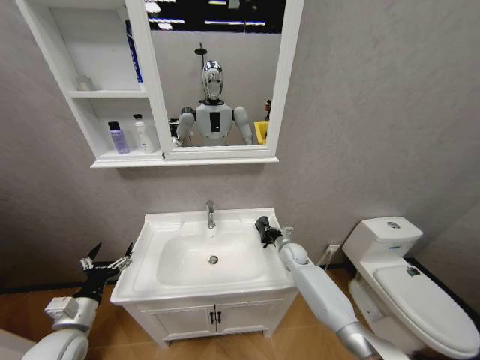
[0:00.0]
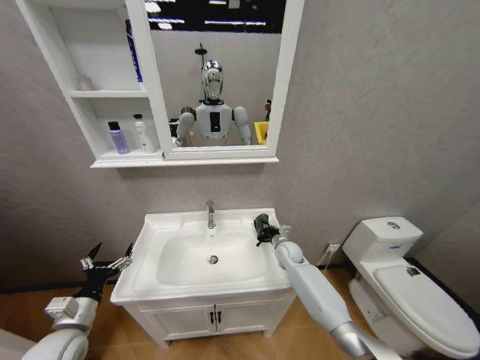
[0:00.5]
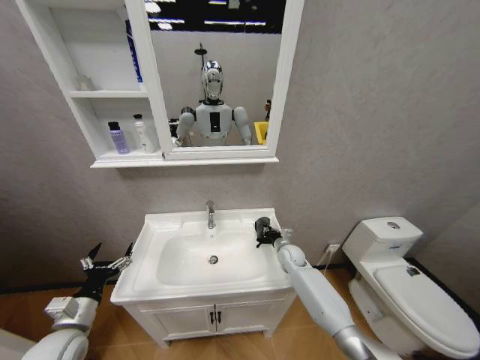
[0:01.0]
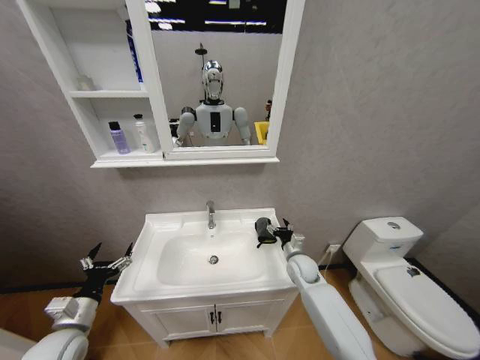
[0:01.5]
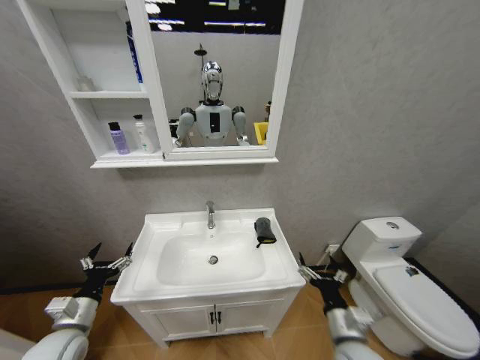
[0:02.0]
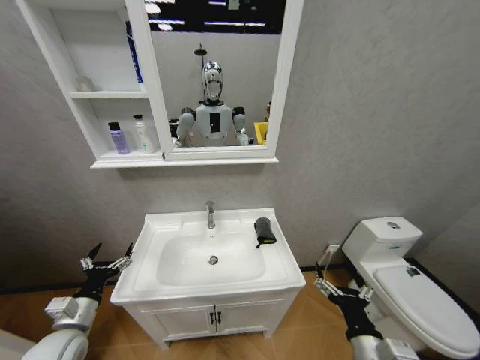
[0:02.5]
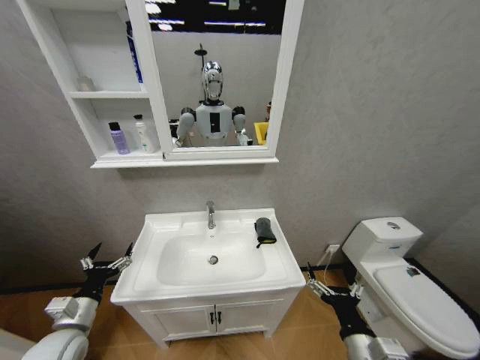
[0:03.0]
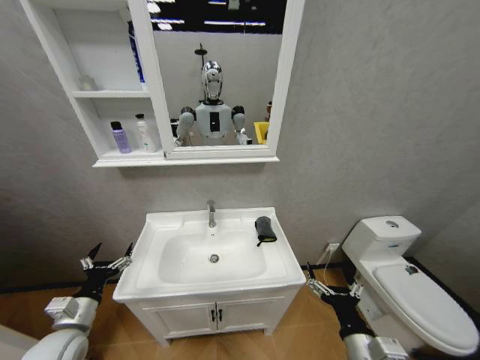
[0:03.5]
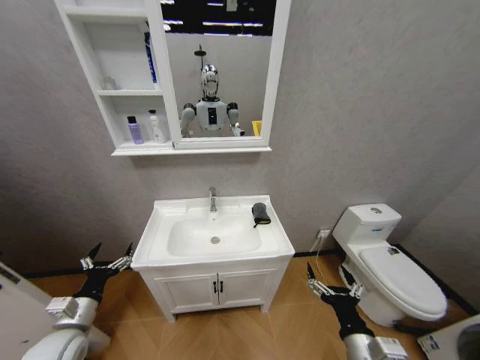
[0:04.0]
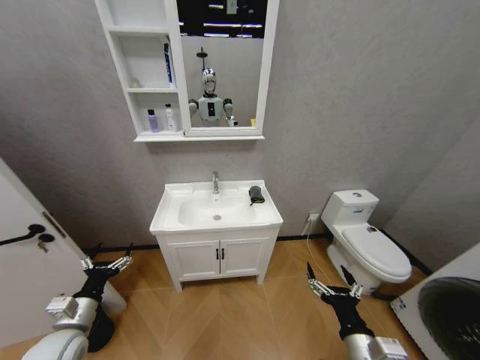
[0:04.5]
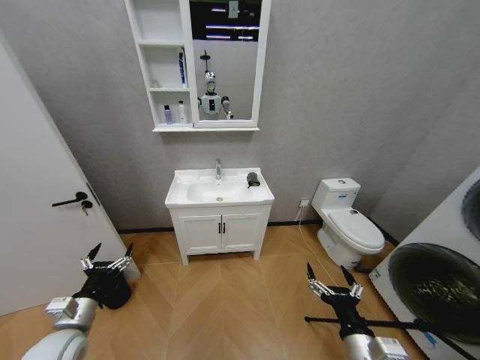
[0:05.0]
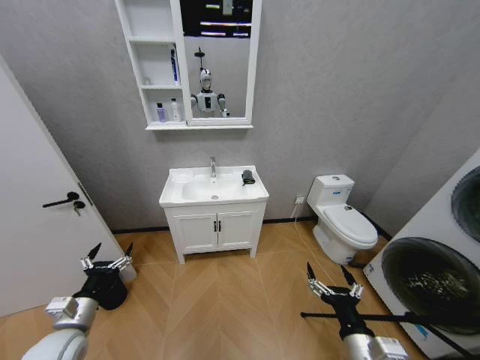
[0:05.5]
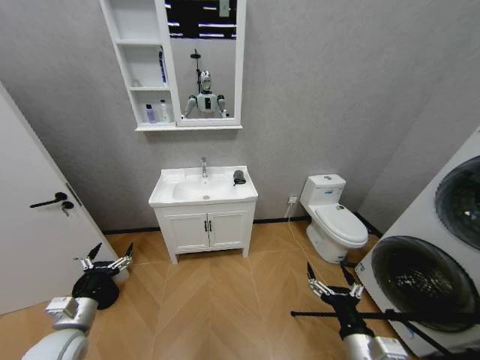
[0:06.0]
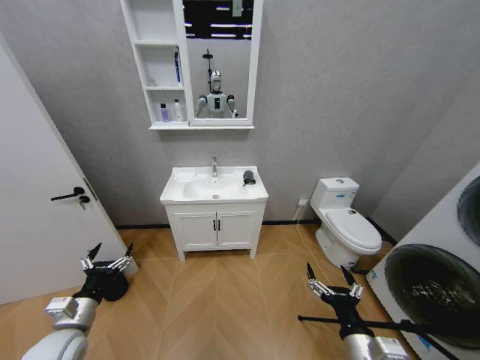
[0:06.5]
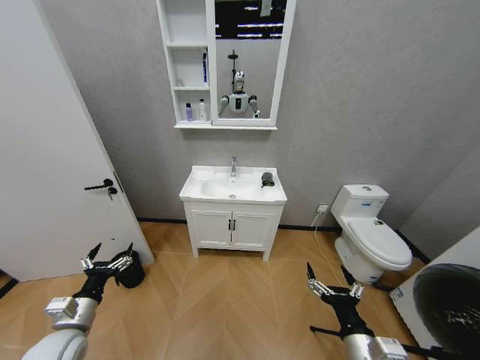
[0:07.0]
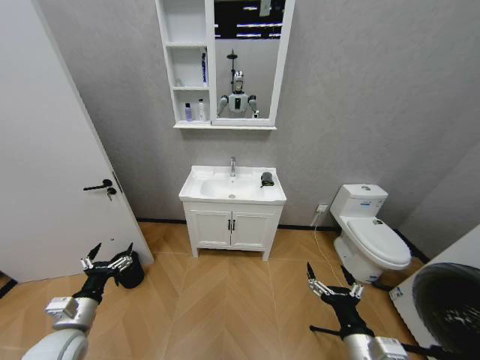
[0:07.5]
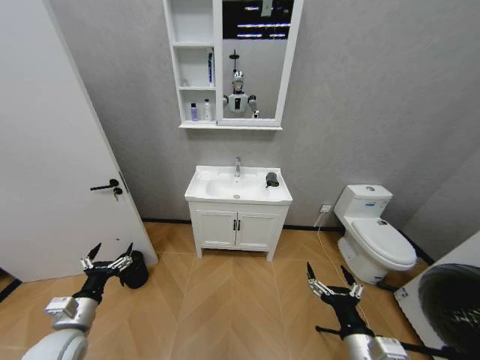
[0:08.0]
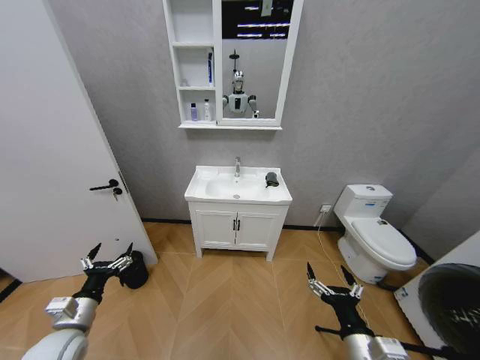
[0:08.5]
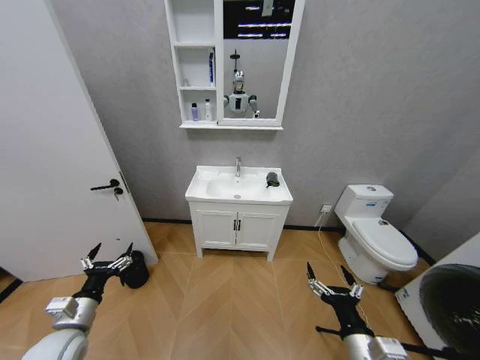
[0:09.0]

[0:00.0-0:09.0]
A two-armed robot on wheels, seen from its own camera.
Task of the whole recording: Move facial cleanser and shampoo from washbasin to cabinet, then wipe washbasin with towel.
0.0 to 2.0 s: The right gripper shifts about 30 cm backward, and opens its fingers.
2.0 to 4.5 s: The right gripper goes roughly 10 cm backward.
7.0 to 9.0 s: Both grippers stay about where they are.

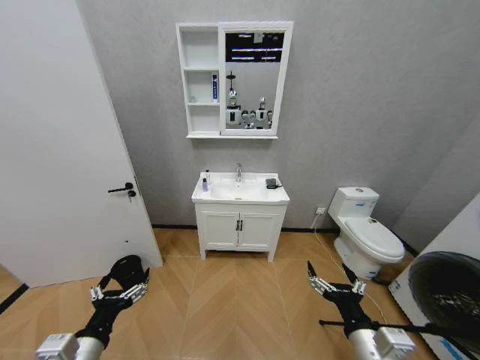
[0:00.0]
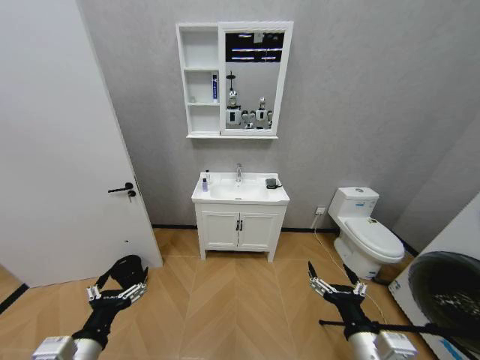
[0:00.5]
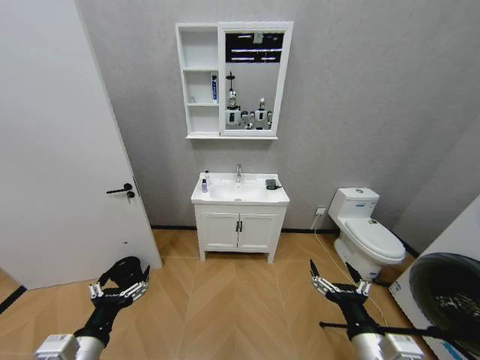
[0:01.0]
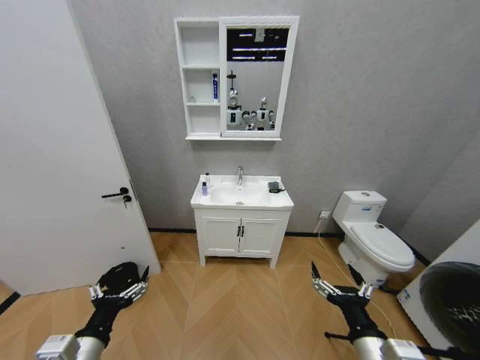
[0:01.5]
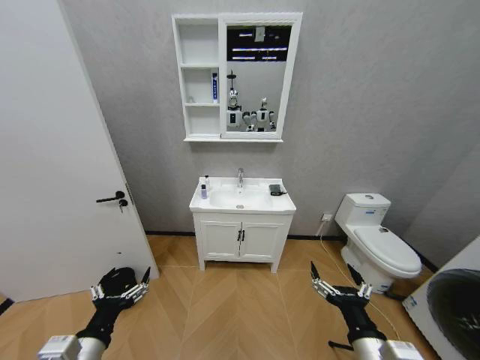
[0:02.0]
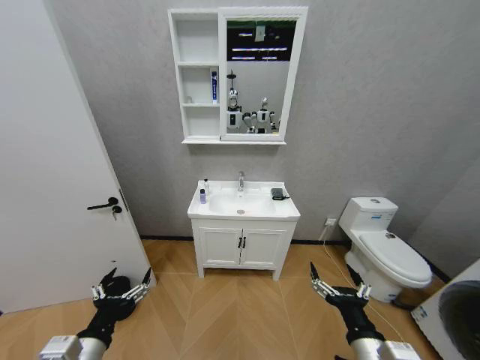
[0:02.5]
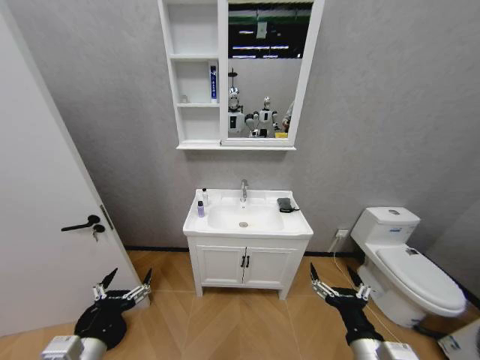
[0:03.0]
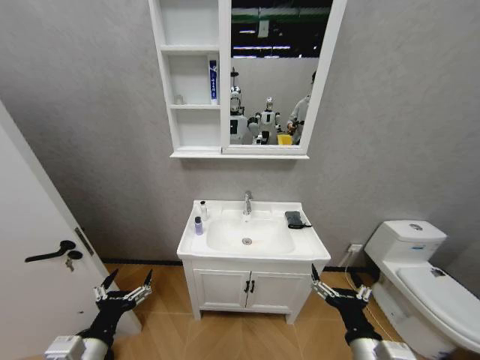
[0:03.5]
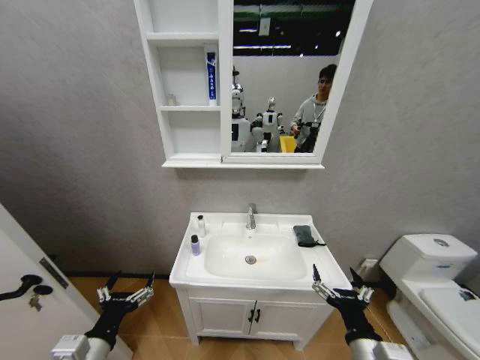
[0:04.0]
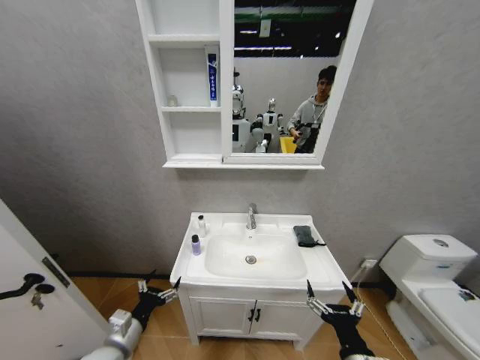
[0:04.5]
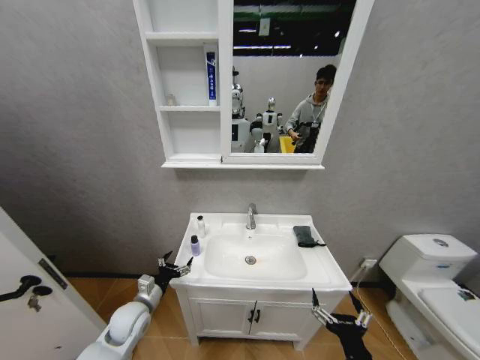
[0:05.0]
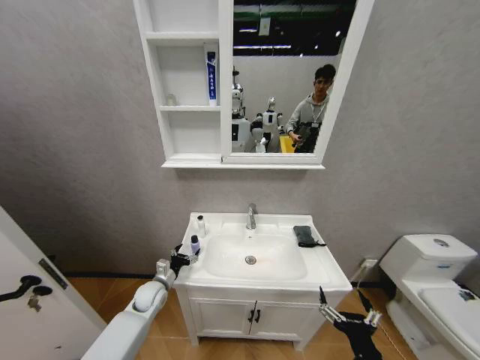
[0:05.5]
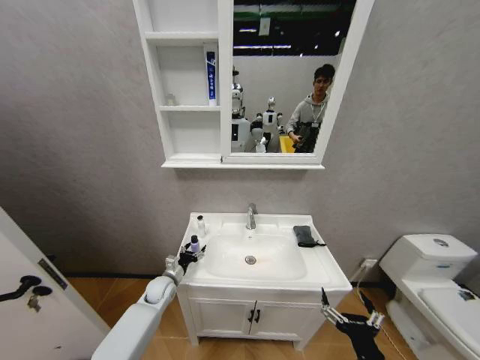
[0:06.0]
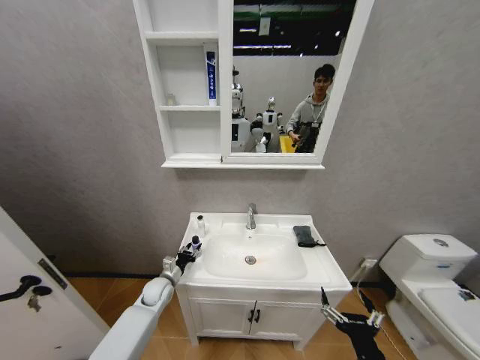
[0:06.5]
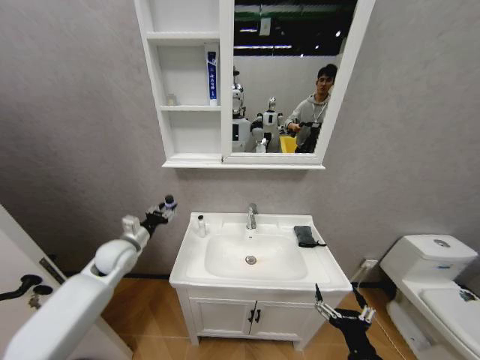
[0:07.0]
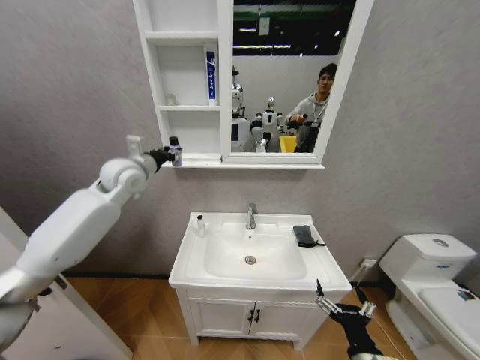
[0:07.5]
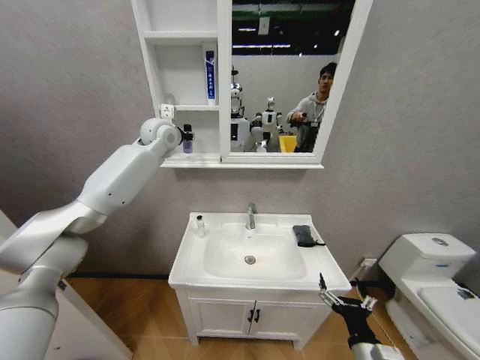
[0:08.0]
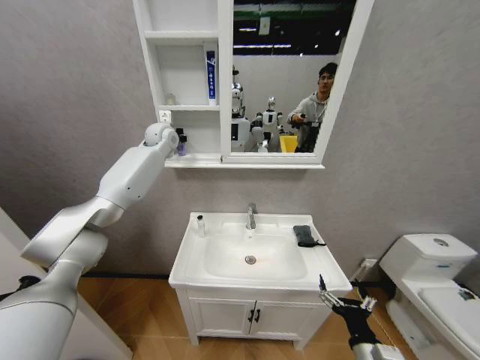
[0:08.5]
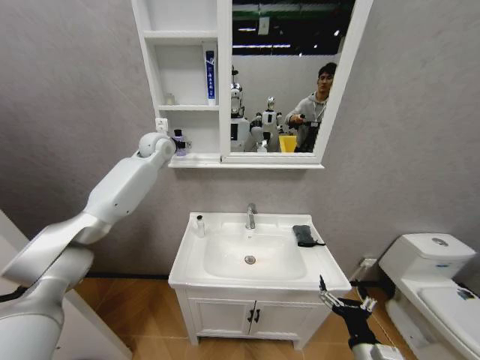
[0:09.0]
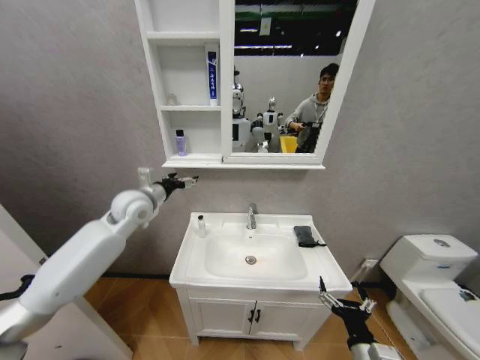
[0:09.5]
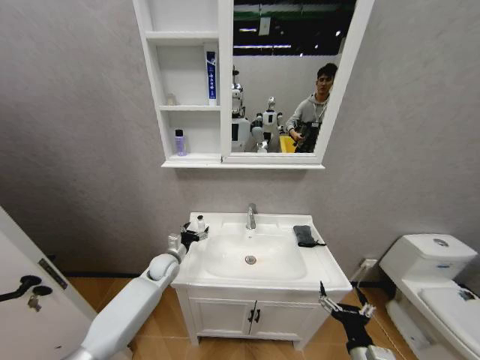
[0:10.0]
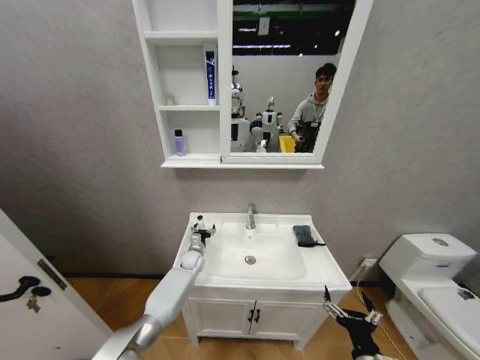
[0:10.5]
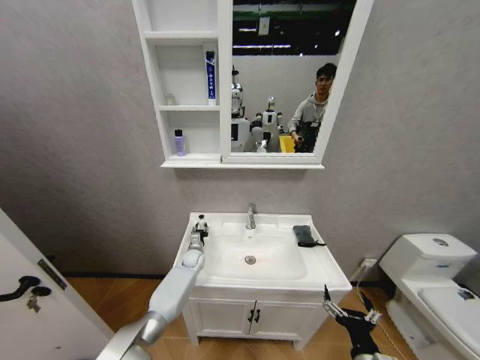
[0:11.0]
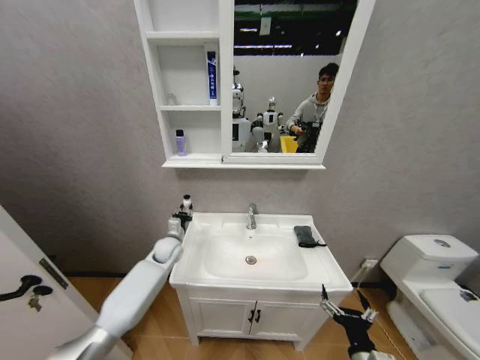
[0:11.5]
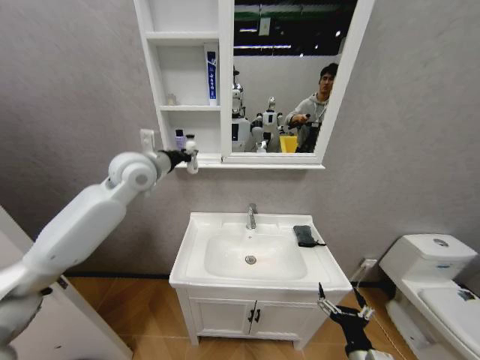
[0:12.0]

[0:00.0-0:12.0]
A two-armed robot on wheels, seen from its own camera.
Task of the whole recording: Move facial cleanser and shampoo from washbasin to cabinet, then wipe washbasin with towel.
4.0 to 6.0 s: The left gripper heads forward and downward, covering about 35 cm. Meanwhile the right gripper ends up roughly 5 cm from where it was.
6.0 to 8.0 s: The left gripper travels upward by about 50 cm, and closes up.
8.0 to 10.0 s: The left gripper moves downward, about 40 cm, and opens.
10.0 to 12.0 s: The left gripper moves upward, some 40 cm, and closes.

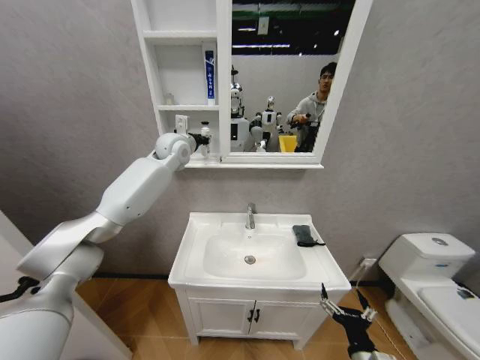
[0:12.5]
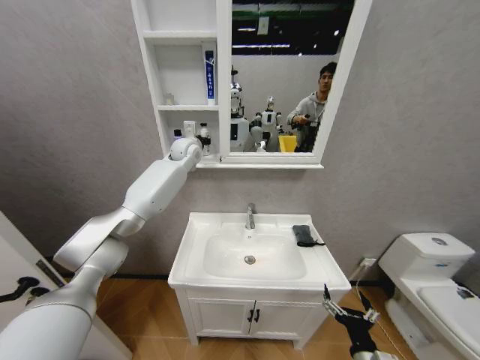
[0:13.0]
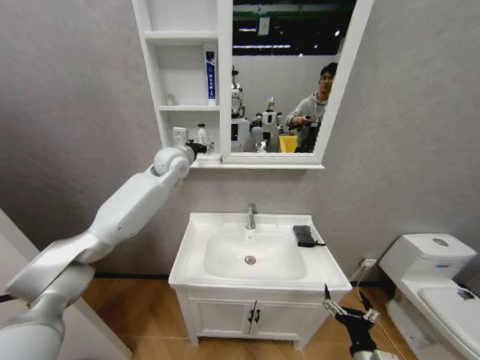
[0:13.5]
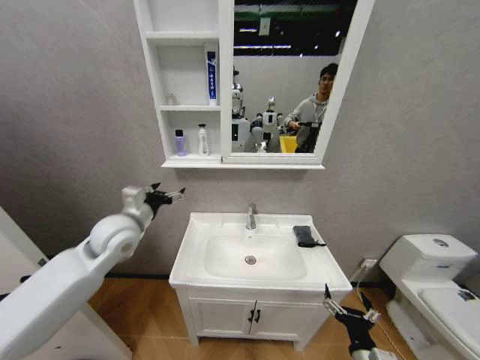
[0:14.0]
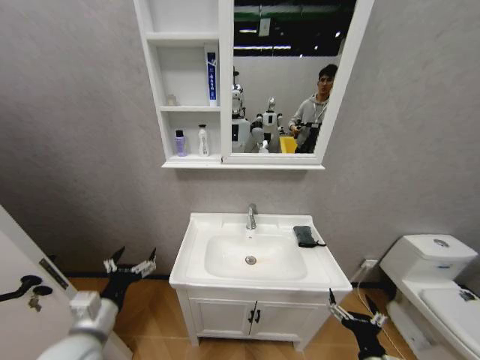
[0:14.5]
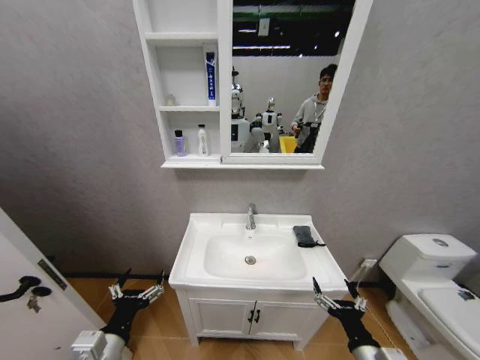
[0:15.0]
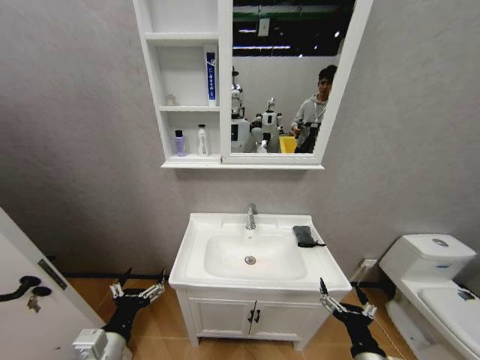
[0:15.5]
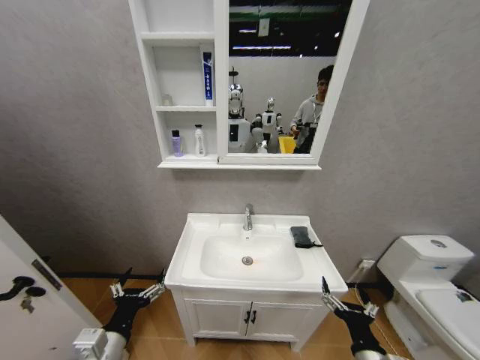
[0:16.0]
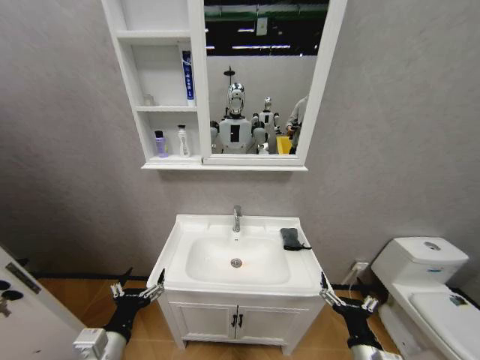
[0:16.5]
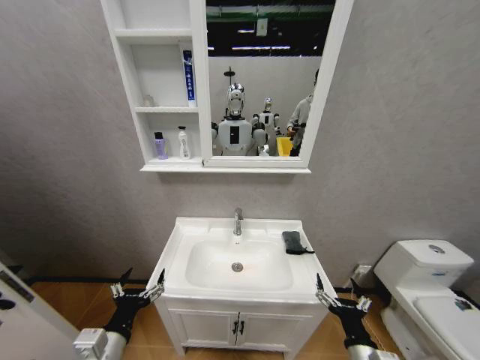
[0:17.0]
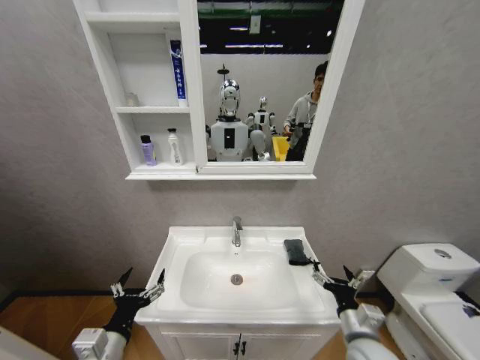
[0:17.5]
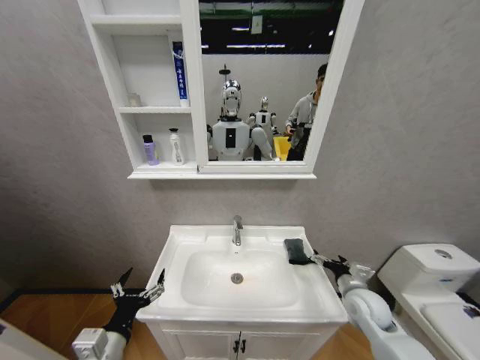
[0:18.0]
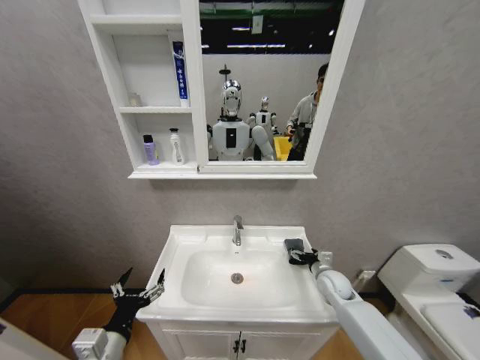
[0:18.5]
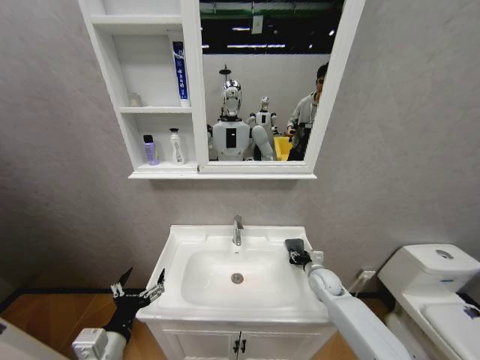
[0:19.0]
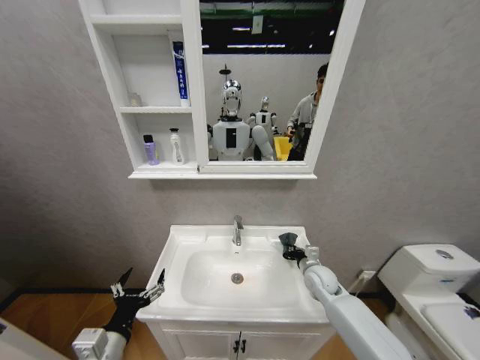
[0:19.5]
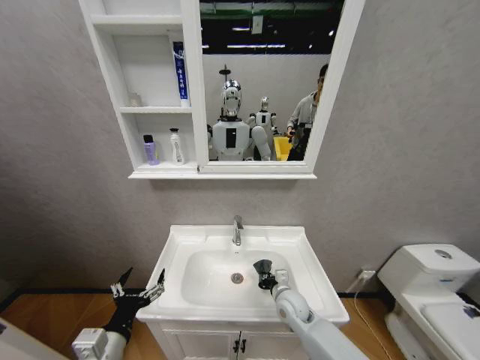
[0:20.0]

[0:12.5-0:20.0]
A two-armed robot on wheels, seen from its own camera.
Task of the whole recording: Move facial cleanser and shampoo from washbasin to cabinet, then wipe washbasin with towel.
12.5 to 14.5 s: The left gripper moves backward and downward, approximately 50 cm, and opens up.
14.5 to 16.5 s: The left gripper changes place by roughly 5 cm.
16.5 to 18.0 s: The right gripper is displaced forward and to the right by roughly 20 cm.
18.0 to 20.0 s: The right gripper goes roughly 20 cm to the left and downward, and closes its fingers.
